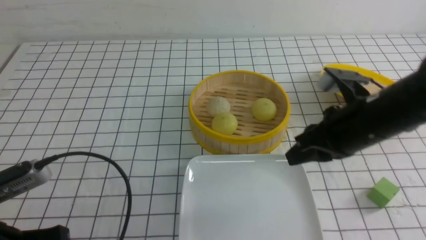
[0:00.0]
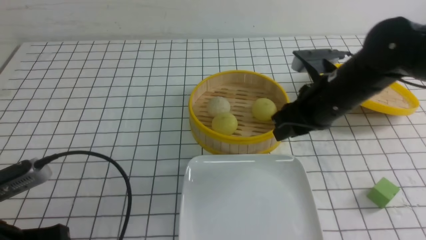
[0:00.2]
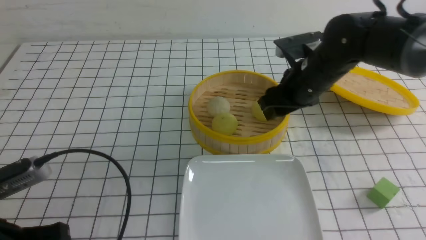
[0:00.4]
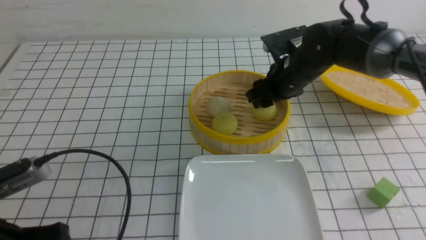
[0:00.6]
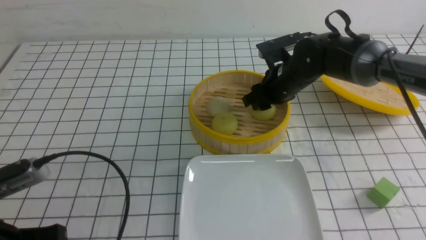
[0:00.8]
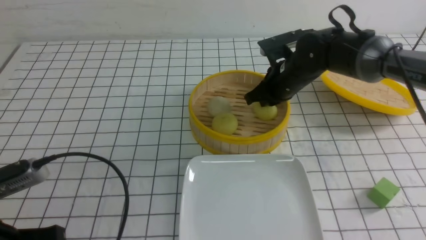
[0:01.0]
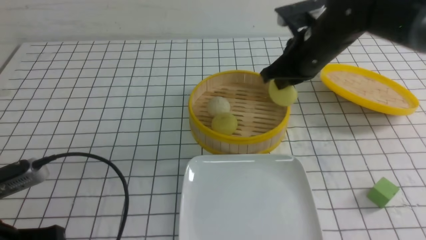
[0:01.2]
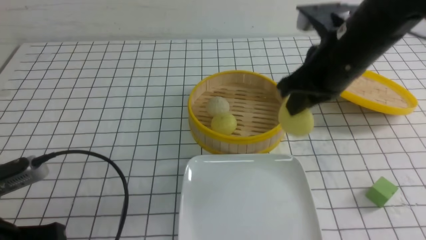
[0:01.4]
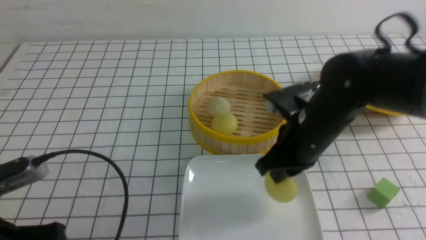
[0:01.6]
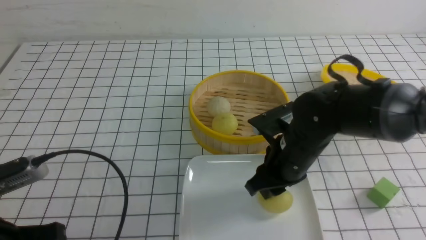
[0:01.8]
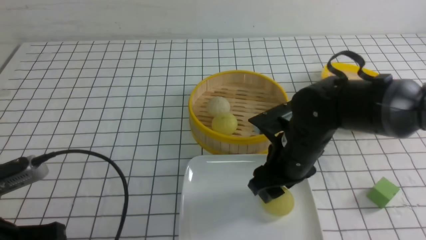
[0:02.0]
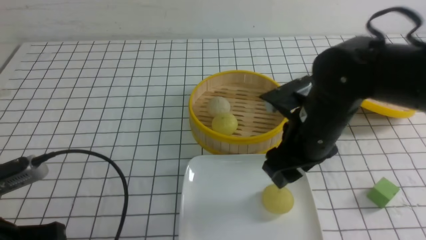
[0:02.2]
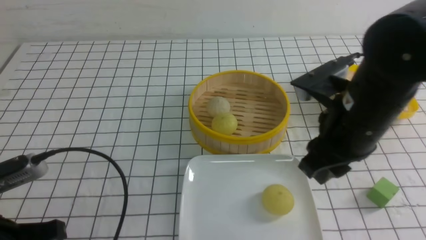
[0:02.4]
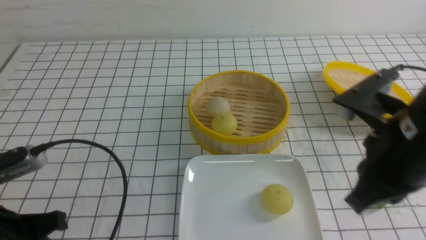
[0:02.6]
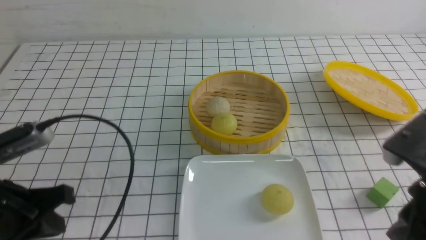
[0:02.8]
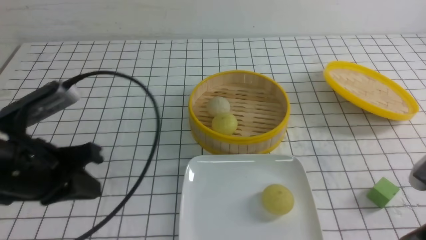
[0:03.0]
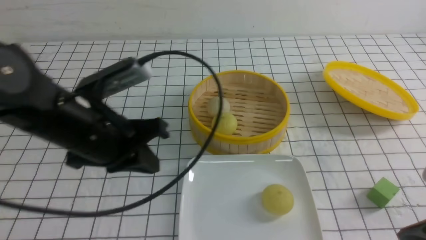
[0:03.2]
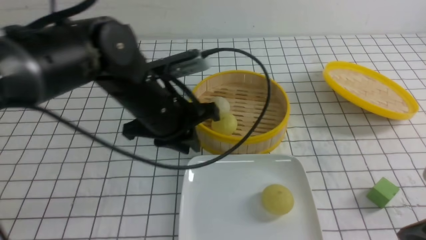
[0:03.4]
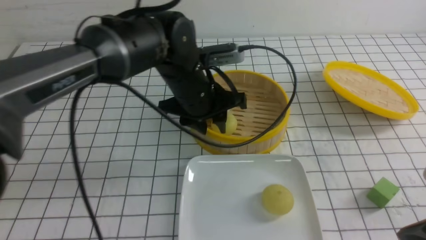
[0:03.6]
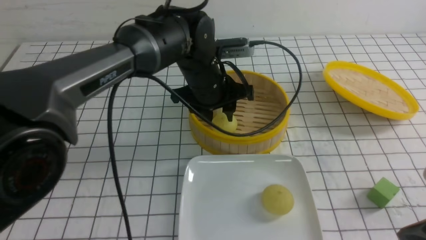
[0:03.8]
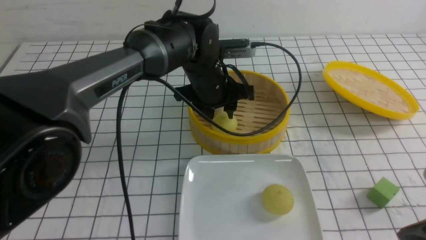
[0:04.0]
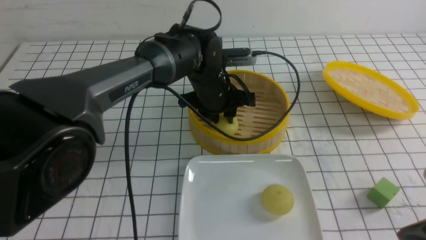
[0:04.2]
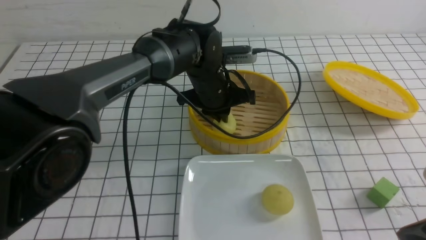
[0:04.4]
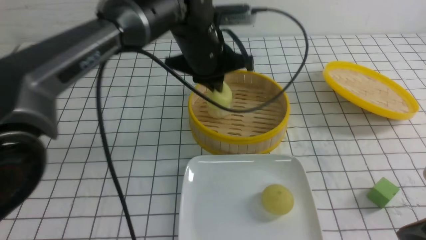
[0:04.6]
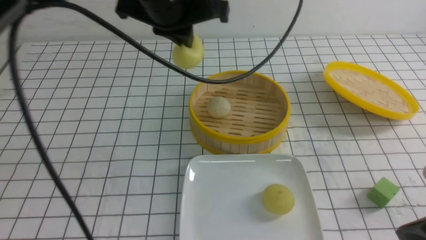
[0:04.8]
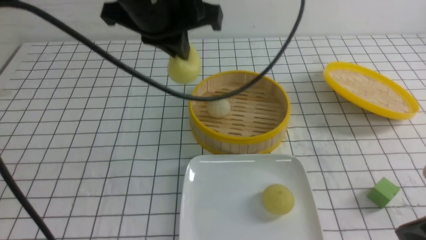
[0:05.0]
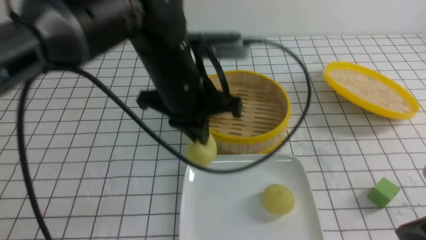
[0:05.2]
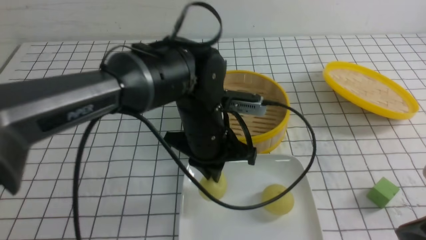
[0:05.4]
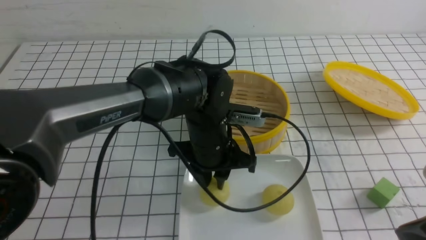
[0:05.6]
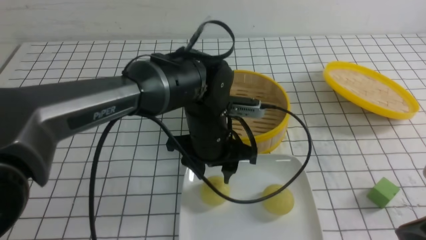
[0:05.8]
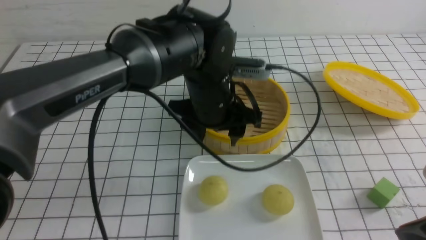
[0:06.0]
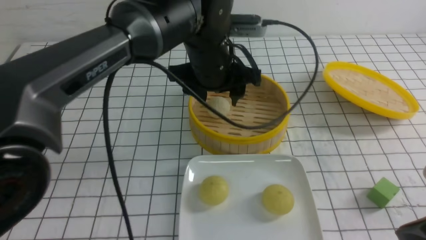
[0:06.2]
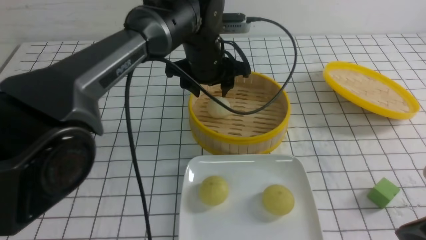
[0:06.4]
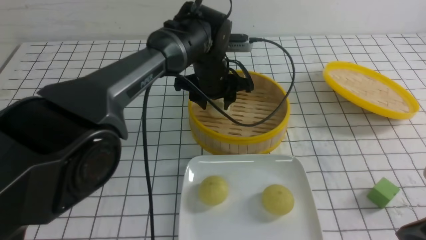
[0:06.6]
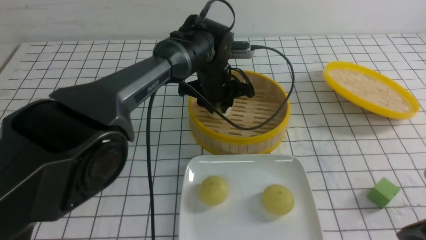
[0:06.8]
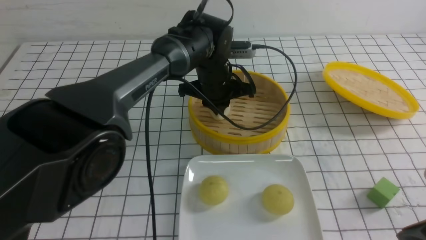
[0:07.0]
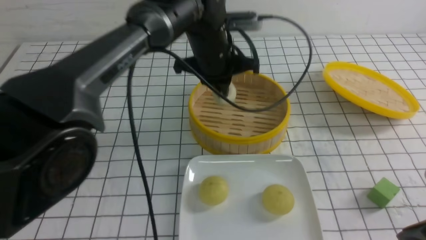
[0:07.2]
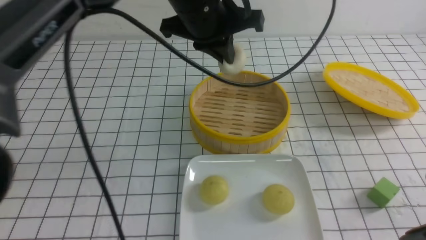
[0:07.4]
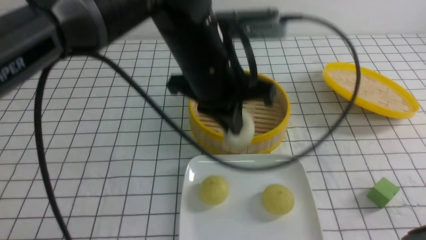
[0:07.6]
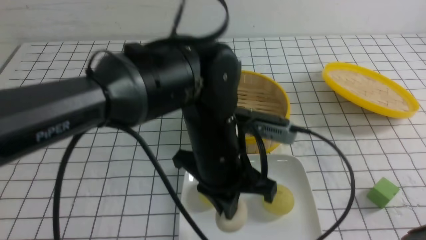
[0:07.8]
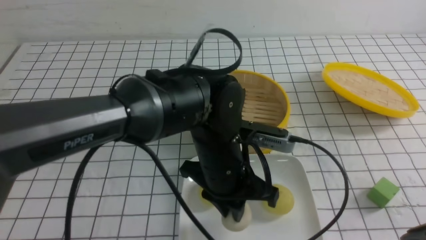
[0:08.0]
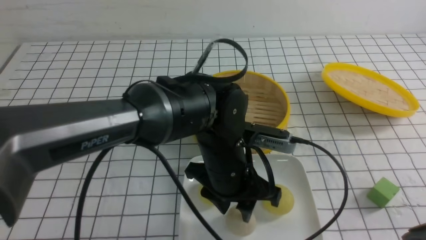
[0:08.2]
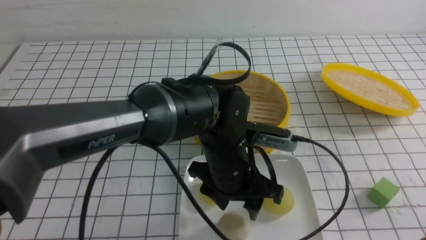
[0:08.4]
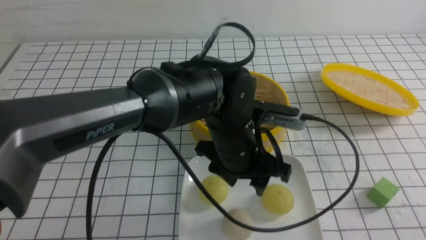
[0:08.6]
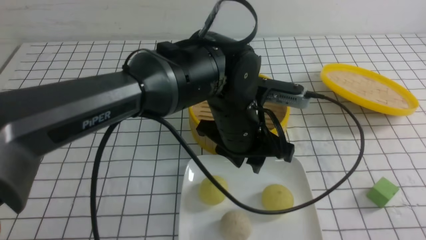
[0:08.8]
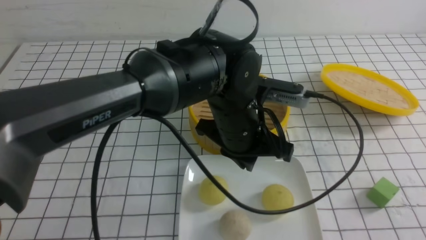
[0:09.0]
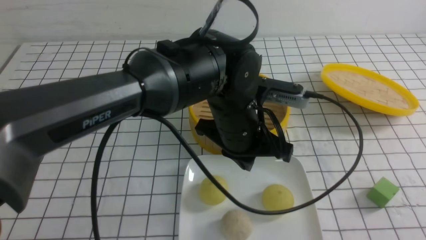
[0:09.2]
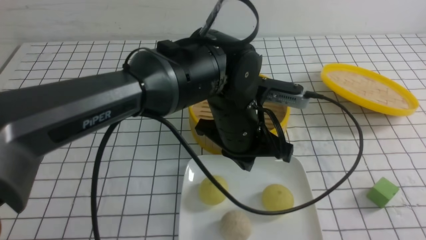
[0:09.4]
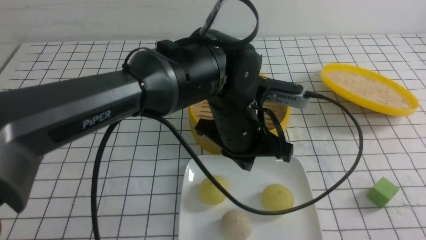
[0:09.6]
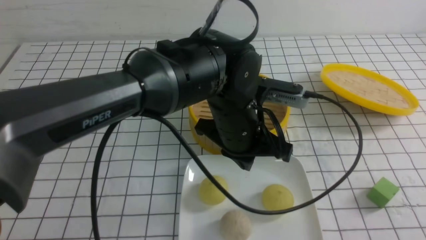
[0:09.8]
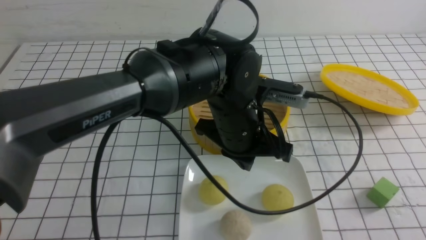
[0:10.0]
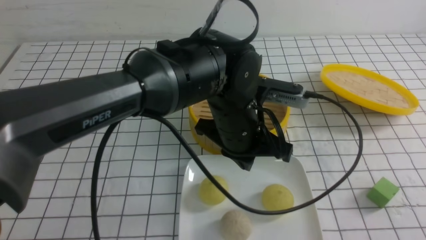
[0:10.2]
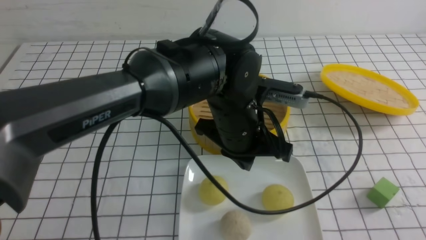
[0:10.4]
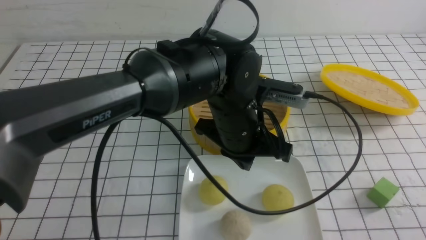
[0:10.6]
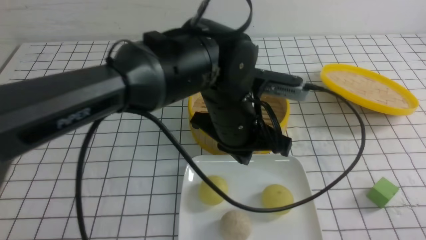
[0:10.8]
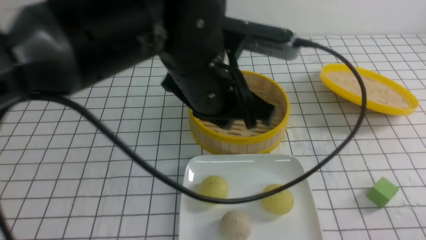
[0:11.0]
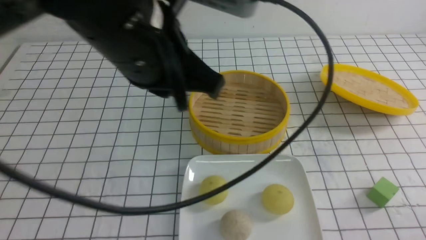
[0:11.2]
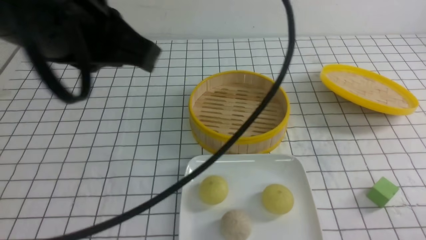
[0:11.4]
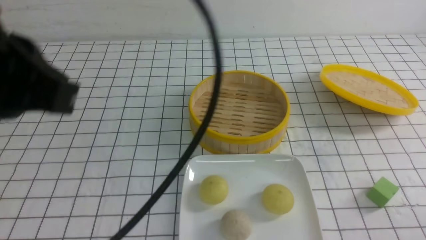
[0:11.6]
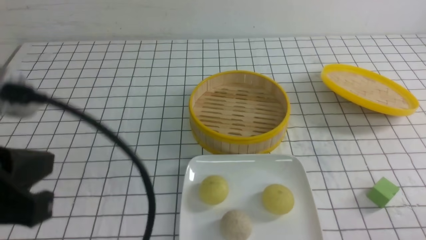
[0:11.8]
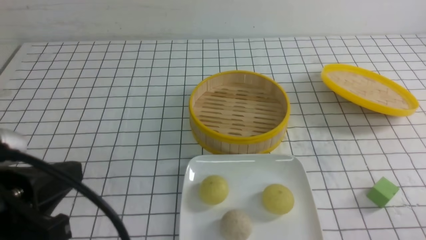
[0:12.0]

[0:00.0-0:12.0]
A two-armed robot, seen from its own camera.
Step, 0:01.2 to 0:02.2: use the right arm to put the steamed stuffed bun into the plate.
Step, 0:02.4 to 0:04.4: use the left arm to grab the steamed stuffed bun that is closest to it.
Step, 0:04.6 to 0:05.8: use the left arm to put the steamed stuffed bun into the plate.
Step, 0:06.0 to 0:07.0: use the left arm to grab the steamed stuffed bun that is closest to it.
Step, 0:07.2 to 0:08.6: use the left arm to put the steamed stuffed bun into the plate.
0:00.0 to 0:01.6: The right gripper is displaced to the left by approximately 5 cm, travels forward and back again, approximately 15 cm each way, and opens, then closes again.
0:01.6 to 0:03.0: The right gripper moves backward and to the right, some 20 cm, and opens and closes again, while the left gripper moves forward, about 10 cm.
0:03.0 to 0:04.4: The left gripper heads to the right and forward, covering roughly 30 cm, and opens, then closes again.
0:04.4 to 0:06.0: The left gripper moves up and down over roughly 15 cm, changing direction 2 times, and opens up.
0:06.0 to 0:07.6: The left gripper travels upward by about 5 cm, goes forward and returns, about 10 cm each way, and closes up.
0:07.6 to 0:09.0: The left gripper is displaced downward by about 5 cm, and opens, then closes again; the right gripper is displaced backward and to the right by roughly 10 cm.
0:10.4 to 0:12.0: The left gripper shifts some 30 cm to the left and backward, while the right gripper moves downward, about 5 cm.

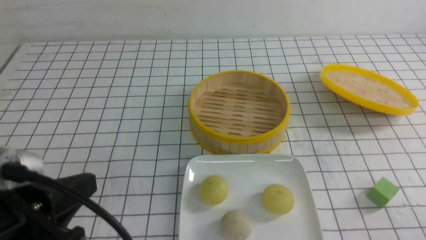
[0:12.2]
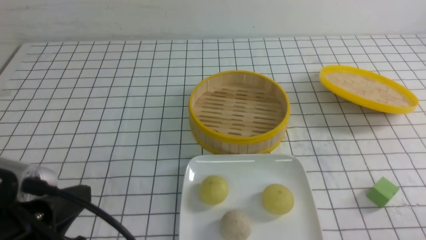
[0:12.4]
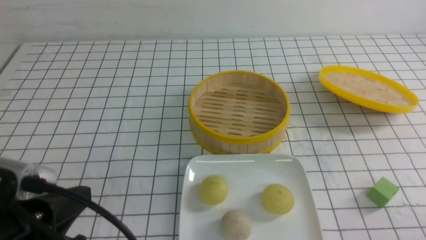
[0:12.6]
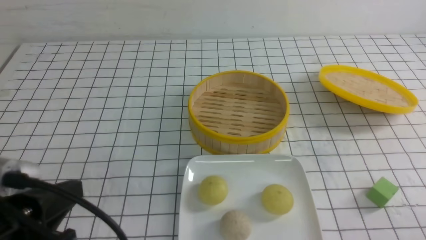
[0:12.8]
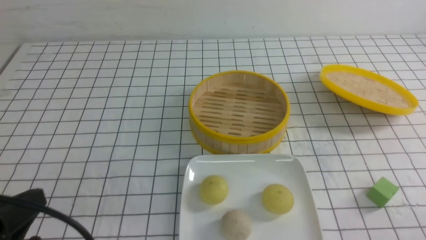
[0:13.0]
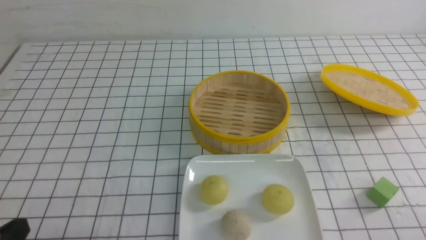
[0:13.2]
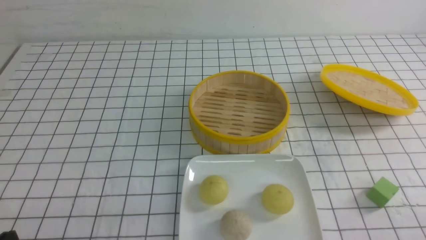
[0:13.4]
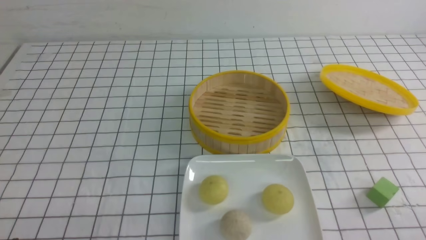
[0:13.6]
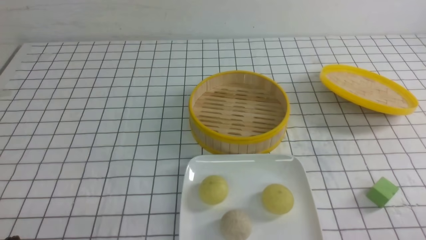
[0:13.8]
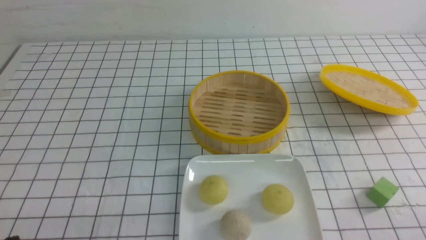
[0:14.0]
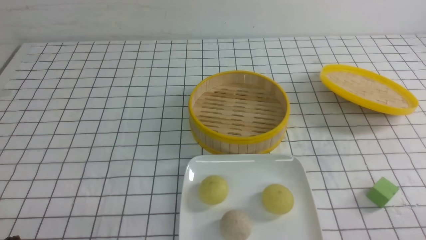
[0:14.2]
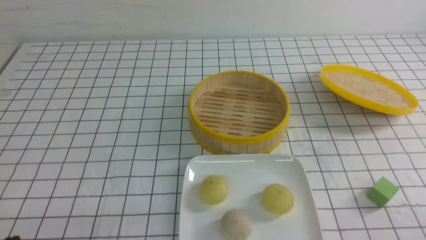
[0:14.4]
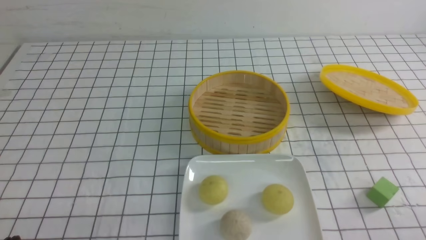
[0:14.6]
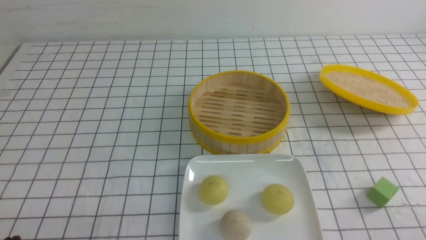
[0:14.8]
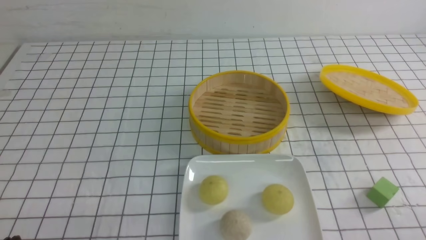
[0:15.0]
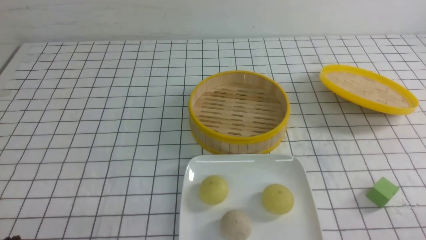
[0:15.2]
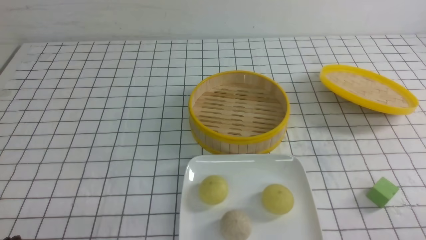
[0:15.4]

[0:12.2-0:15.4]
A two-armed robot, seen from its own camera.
0:12.2 to 0:13.8: The left gripper travels downward and to the left by about 15 cm.
0:13.8 to 0:15.4: Both grippers stay put.
